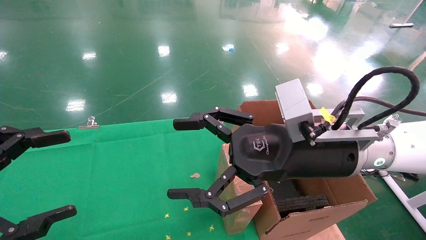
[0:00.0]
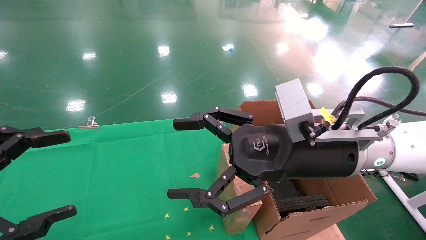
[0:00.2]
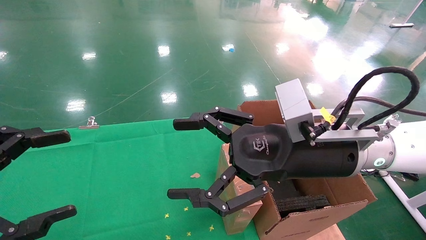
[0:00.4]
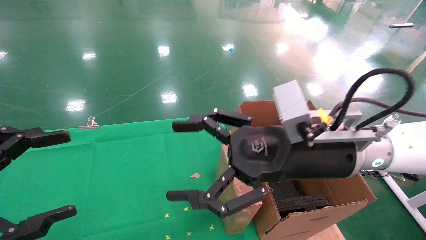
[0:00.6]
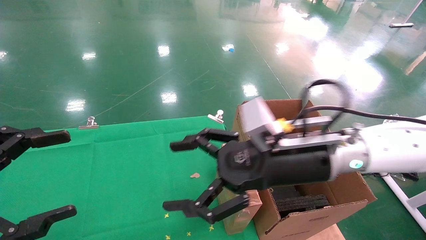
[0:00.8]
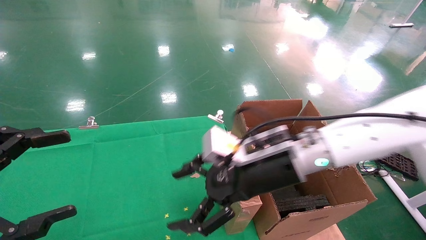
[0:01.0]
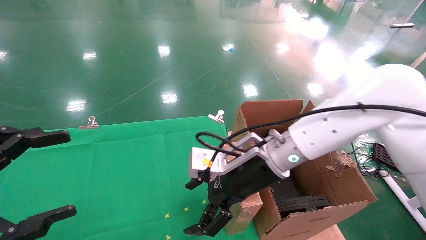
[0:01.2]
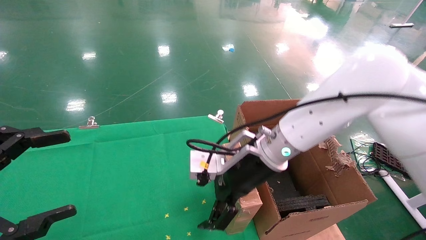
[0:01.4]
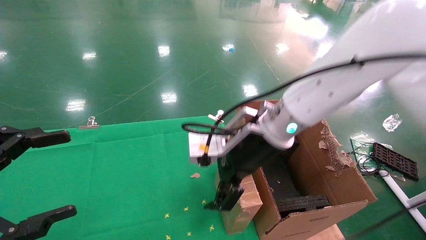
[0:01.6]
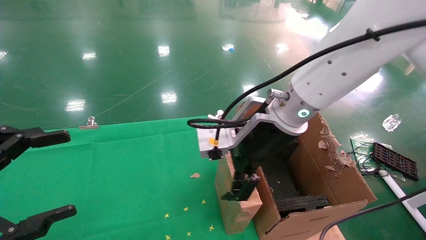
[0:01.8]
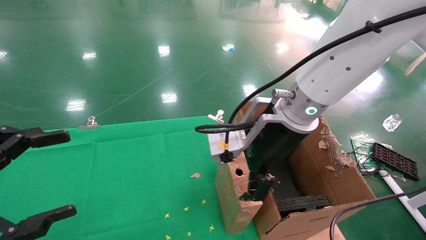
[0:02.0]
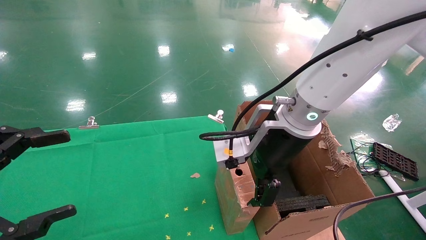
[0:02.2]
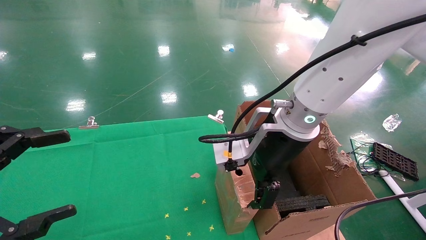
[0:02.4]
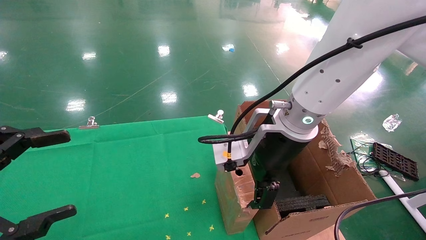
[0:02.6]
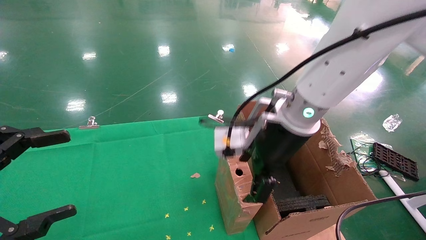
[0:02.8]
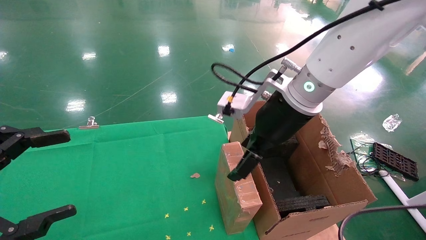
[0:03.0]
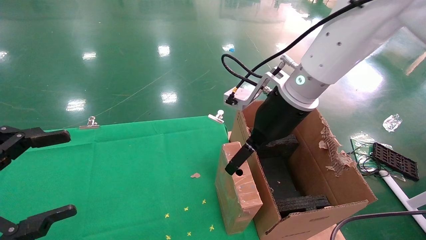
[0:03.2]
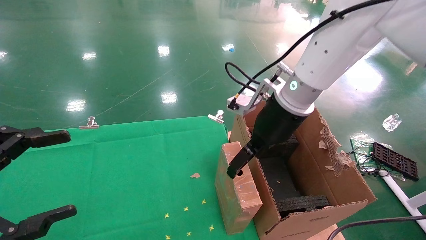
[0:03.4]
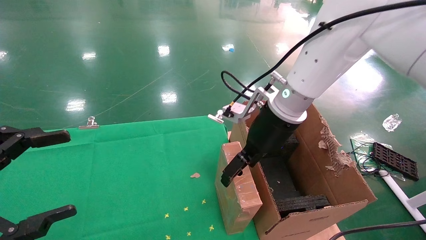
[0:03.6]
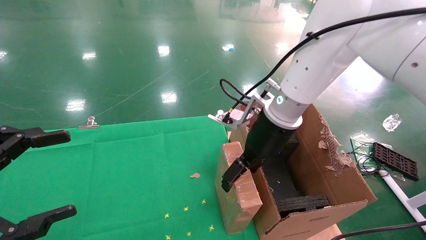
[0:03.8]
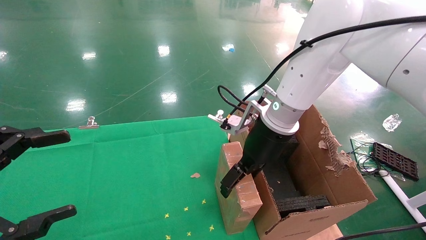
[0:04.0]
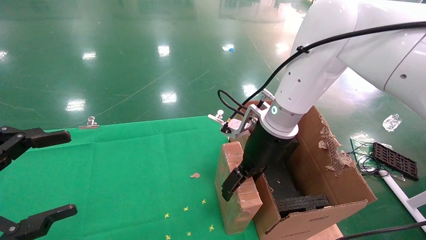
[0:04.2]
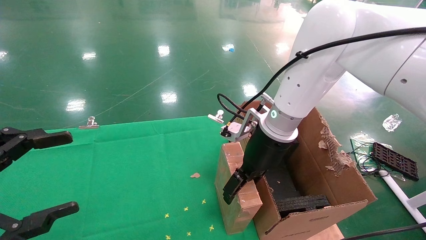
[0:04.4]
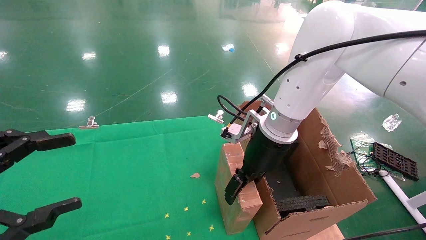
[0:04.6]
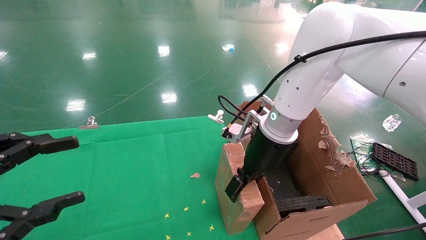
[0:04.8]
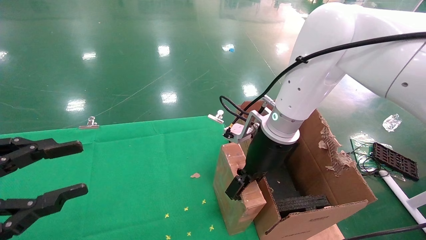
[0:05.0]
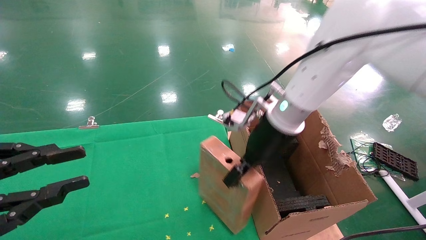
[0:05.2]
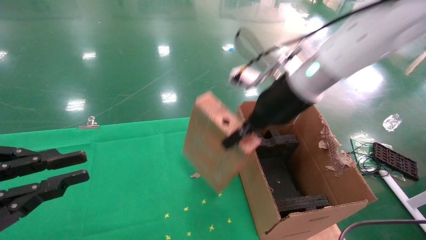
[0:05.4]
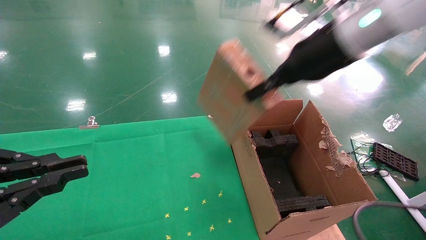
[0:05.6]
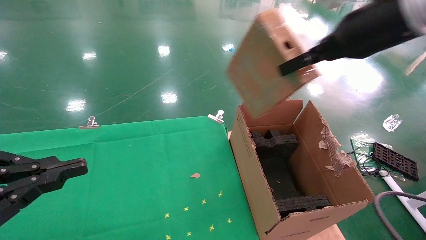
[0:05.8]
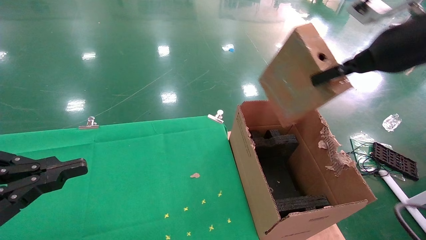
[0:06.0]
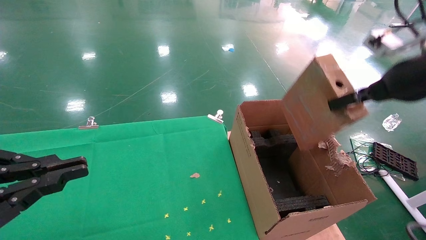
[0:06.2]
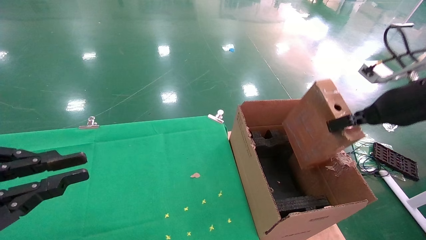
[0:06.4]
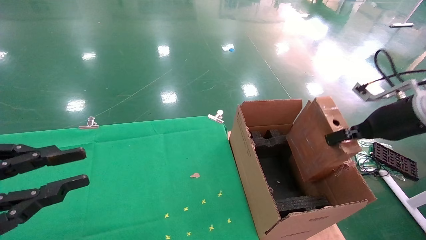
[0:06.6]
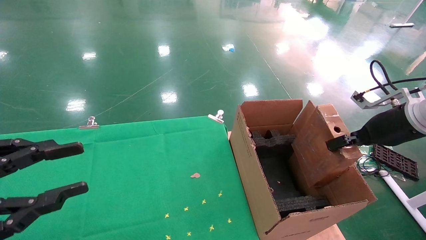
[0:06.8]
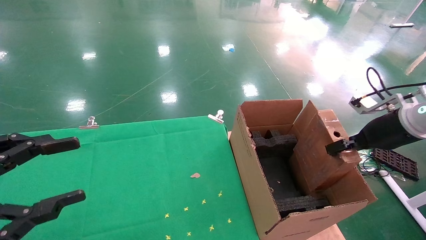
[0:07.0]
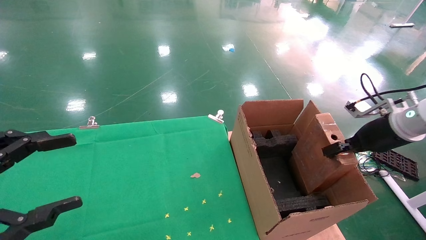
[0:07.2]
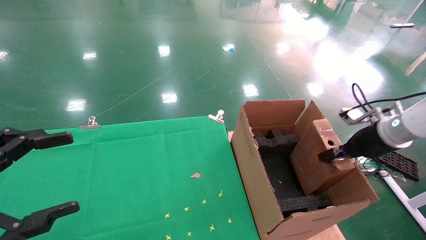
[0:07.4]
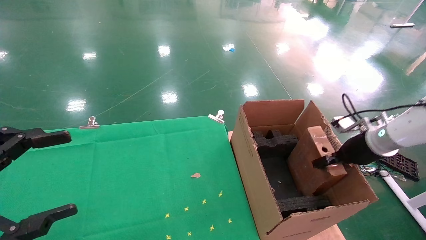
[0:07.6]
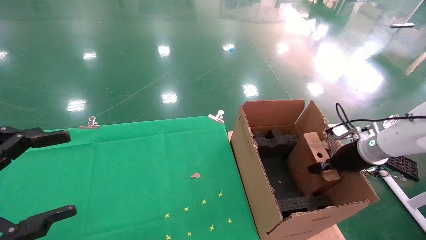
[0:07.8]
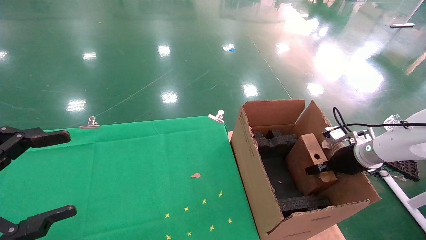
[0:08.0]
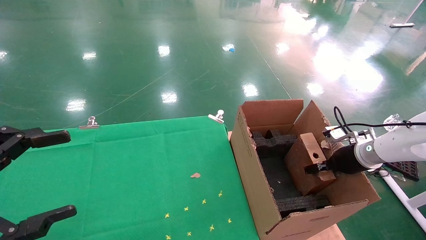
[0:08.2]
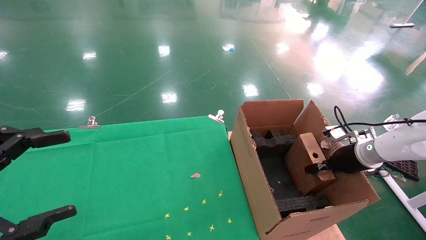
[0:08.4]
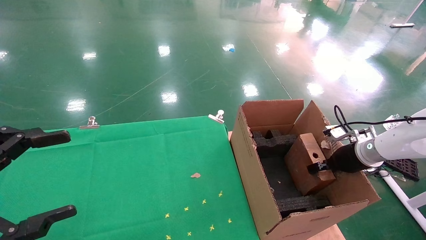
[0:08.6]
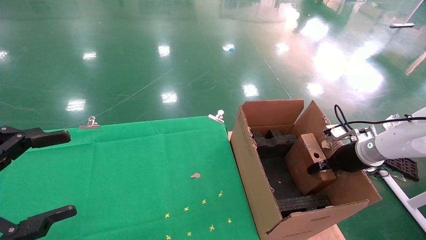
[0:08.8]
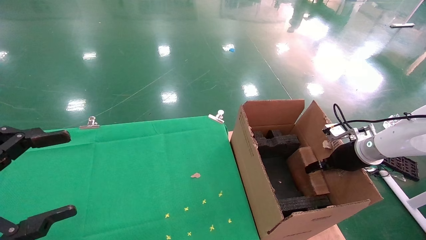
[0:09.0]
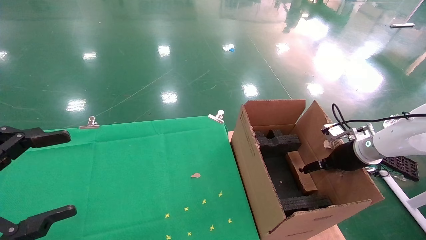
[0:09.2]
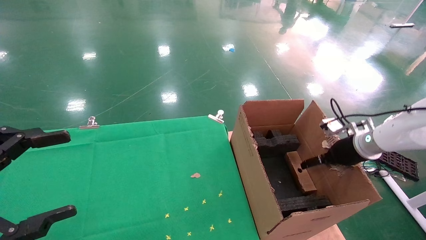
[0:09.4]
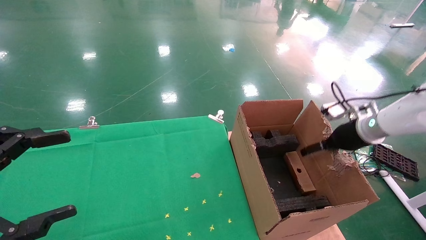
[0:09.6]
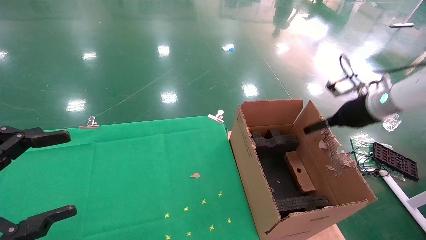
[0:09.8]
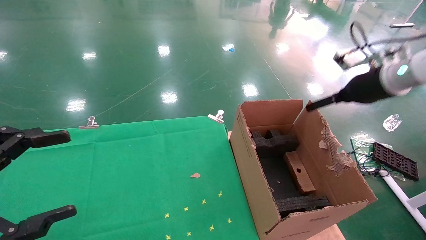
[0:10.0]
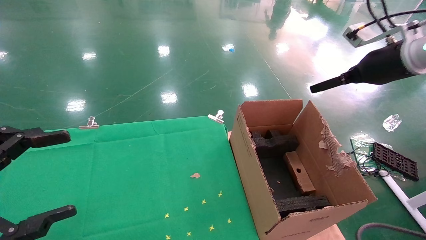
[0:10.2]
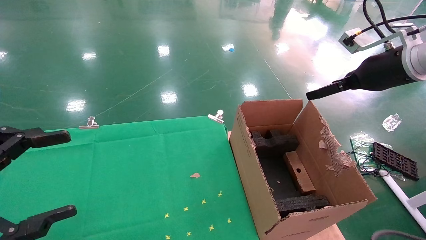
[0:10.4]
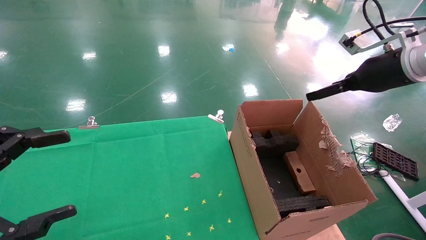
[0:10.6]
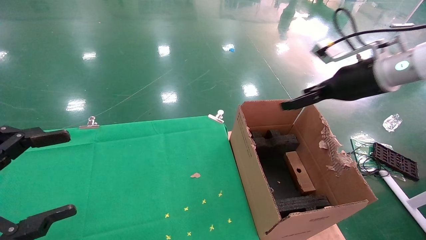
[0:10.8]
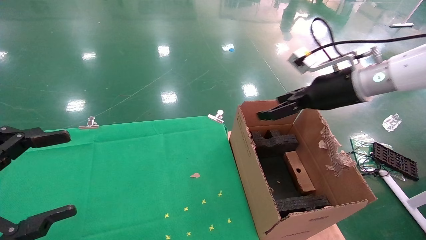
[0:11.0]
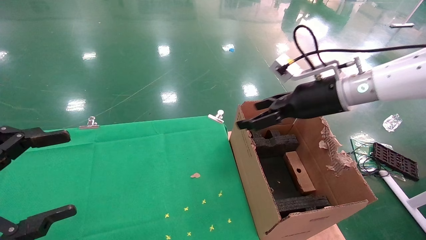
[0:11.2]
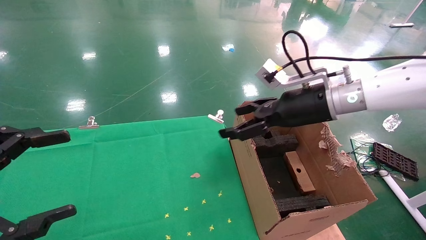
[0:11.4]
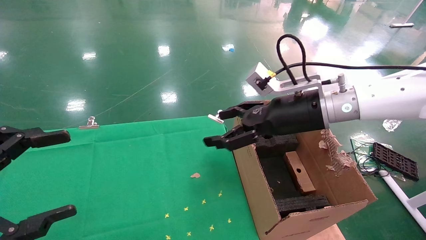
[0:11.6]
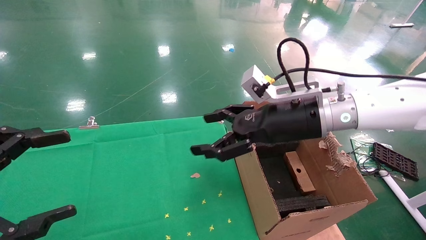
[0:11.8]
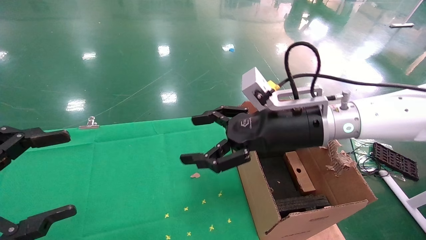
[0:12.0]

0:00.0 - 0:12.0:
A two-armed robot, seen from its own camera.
Task of the whole recording: using a robotic arm to pick up a cardboard box and palace it the carton.
Step, 0:01.0 - 0:05.0: Pick up the mouse and the power cord paper box.
Step, 0:05.2 - 0:09.8: Place the mouse and the power cord paper box into the container.
0:00.0 - 0:01.6: The right gripper travels forward and to the left by roughly 10 cm.
0:01.6 - 0:03.0: The right gripper ends up about 5 cm from where it was.
0:03.0 - 0:04.4: The right gripper is displaced downward by approximately 5 cm.
0:04.4 - 0:06.0: The right gripper heads to the right, upward and backward, covering some 25 cm, and closes; the left gripper closes.
0:06.0 - 0:07.6: The left gripper opens; the right gripper is displaced downward, to the right and forward by roughly 25 cm.
0:07.6 - 0:09.0: The right gripper opens its fingers.
0:09.0 - 0:10.4: The right gripper goes approximately 20 cm upward, and opens up.
0:10.4 - 0:12.0: The right gripper is displaced to the left and downward by roughly 25 cm.

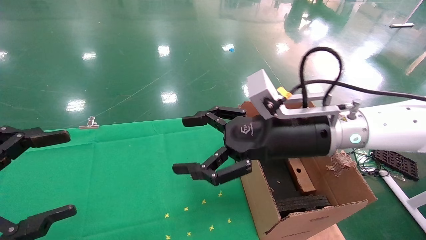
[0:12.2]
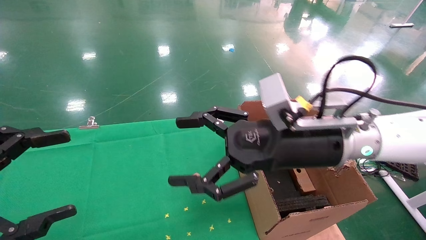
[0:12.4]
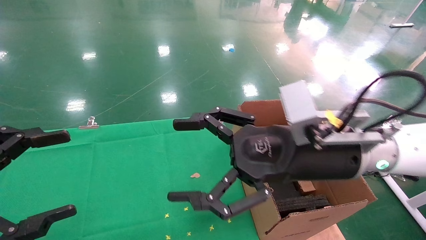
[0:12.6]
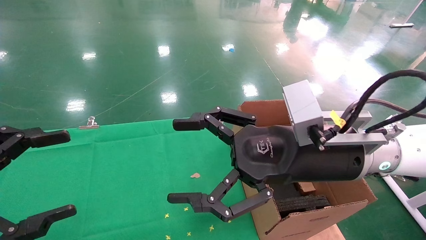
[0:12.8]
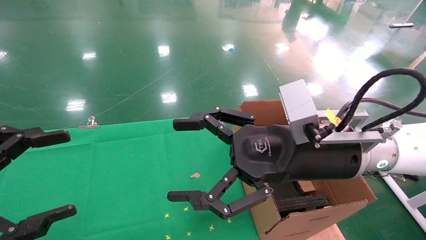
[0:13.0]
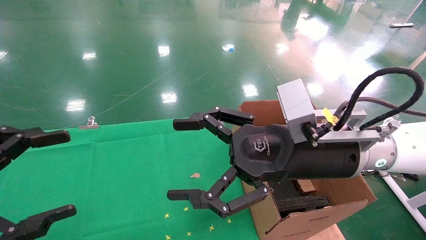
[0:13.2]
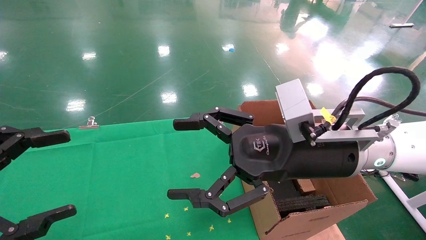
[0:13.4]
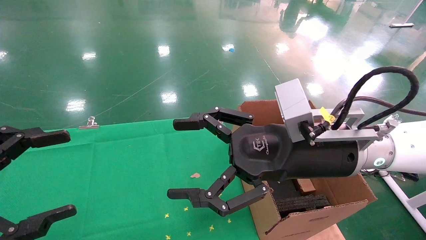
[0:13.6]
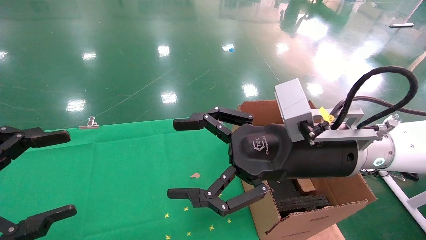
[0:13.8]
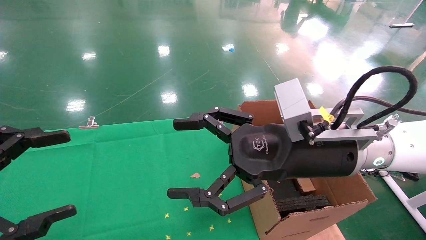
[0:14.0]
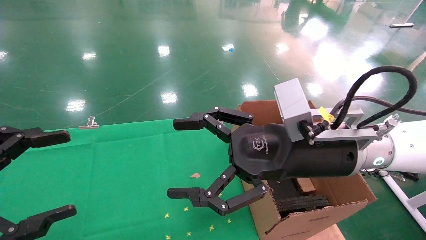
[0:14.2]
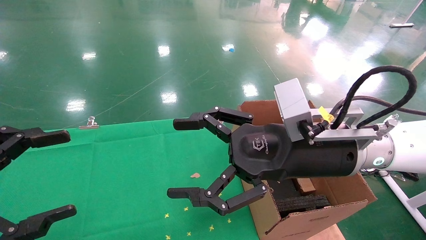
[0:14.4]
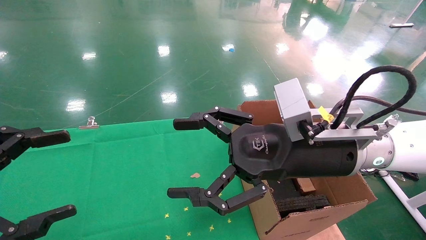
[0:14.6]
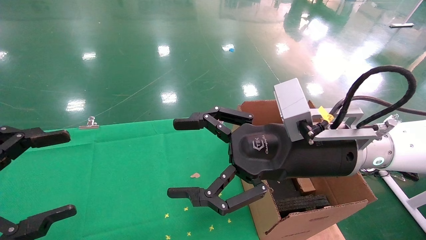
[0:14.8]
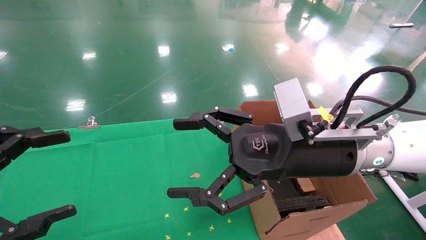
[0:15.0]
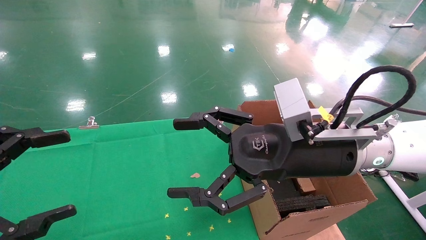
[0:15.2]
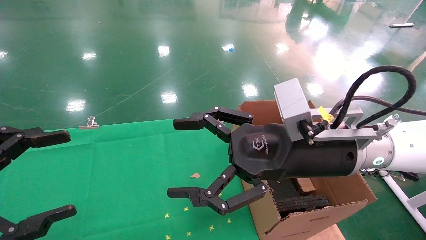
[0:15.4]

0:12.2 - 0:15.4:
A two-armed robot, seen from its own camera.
Task of the whole recording: using a robotic arm to pick up a cardboard box and palace it the carton.
0:12.2 - 0:13.8: The grippers make only small movements.
0:13.8 - 0:15.4: The two grippers keep their place.
